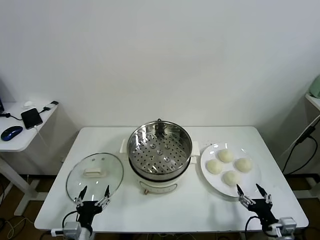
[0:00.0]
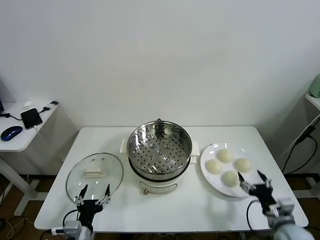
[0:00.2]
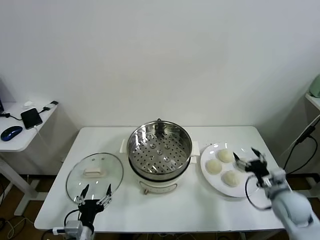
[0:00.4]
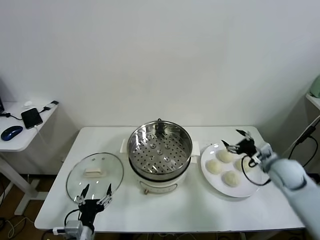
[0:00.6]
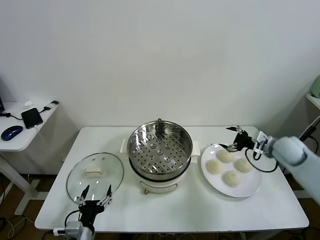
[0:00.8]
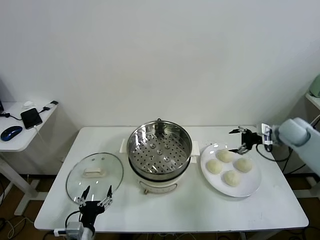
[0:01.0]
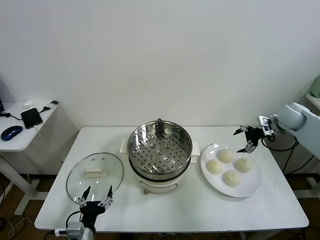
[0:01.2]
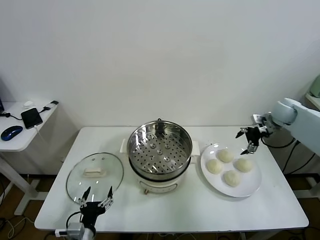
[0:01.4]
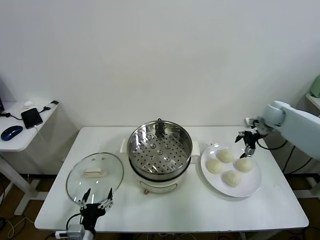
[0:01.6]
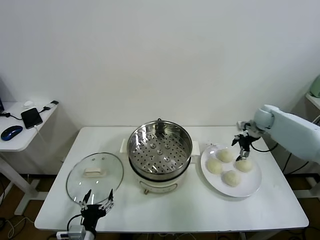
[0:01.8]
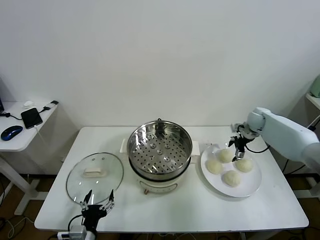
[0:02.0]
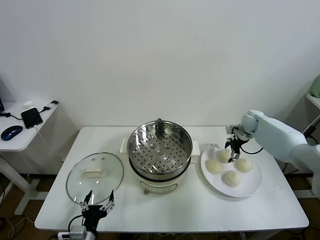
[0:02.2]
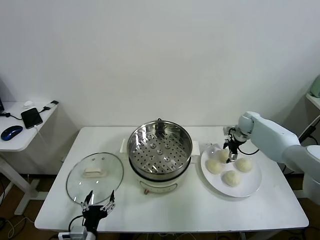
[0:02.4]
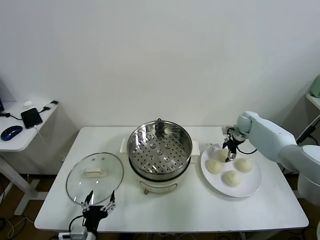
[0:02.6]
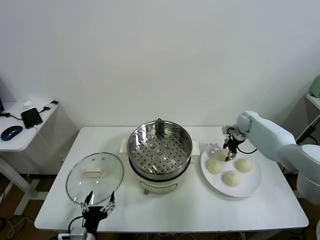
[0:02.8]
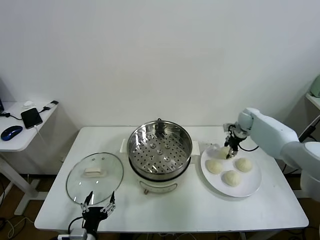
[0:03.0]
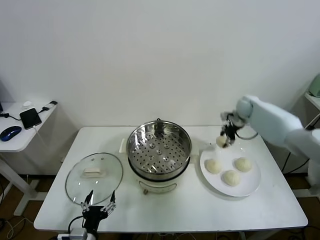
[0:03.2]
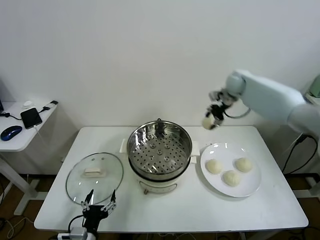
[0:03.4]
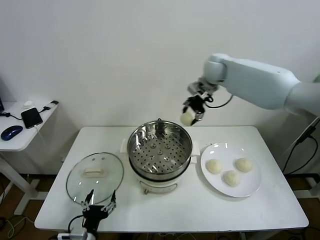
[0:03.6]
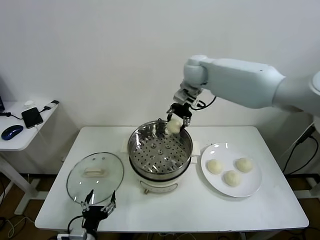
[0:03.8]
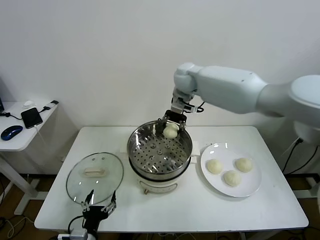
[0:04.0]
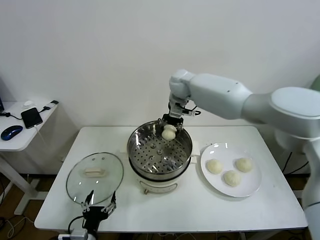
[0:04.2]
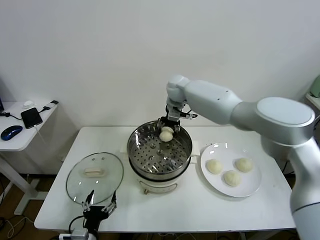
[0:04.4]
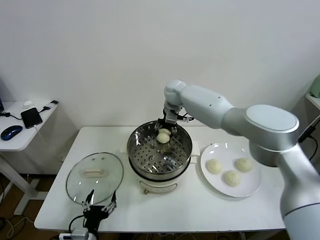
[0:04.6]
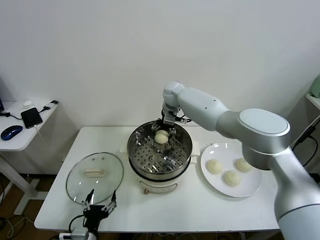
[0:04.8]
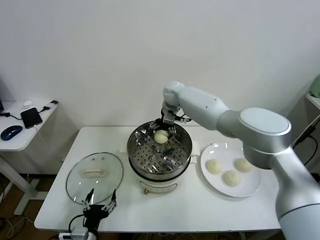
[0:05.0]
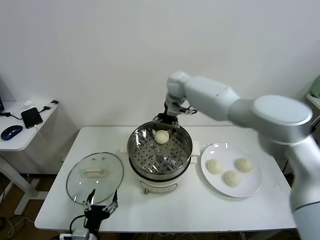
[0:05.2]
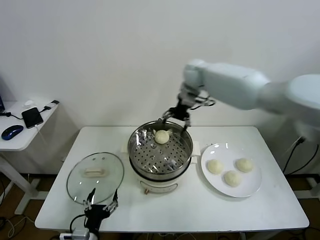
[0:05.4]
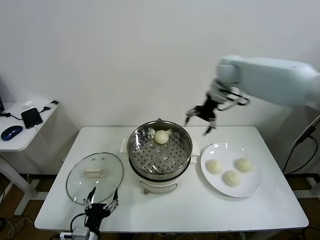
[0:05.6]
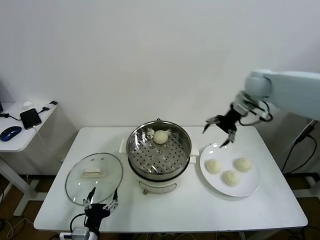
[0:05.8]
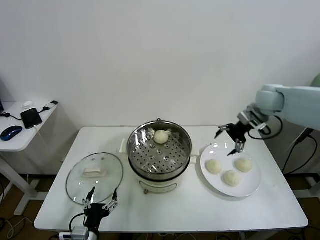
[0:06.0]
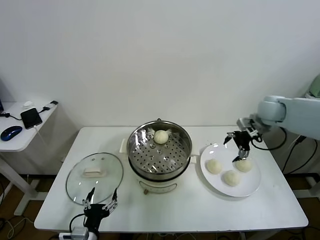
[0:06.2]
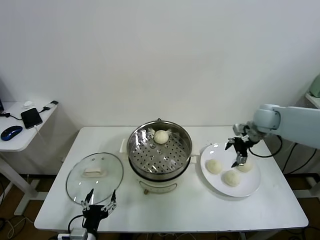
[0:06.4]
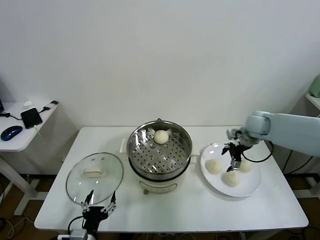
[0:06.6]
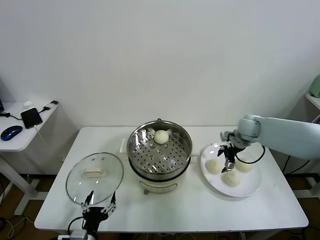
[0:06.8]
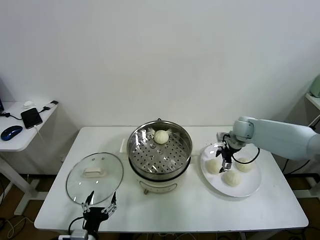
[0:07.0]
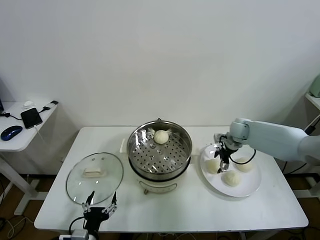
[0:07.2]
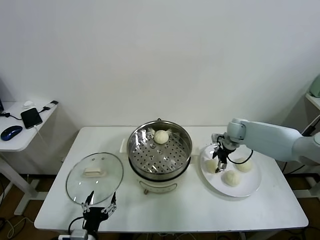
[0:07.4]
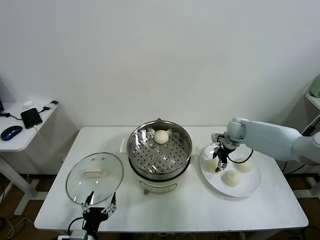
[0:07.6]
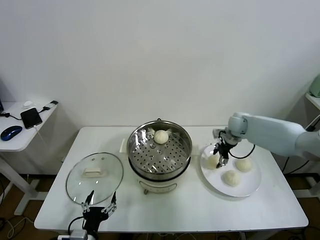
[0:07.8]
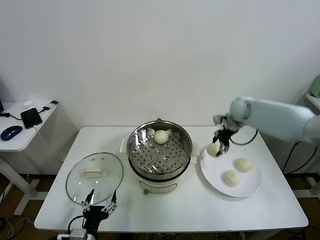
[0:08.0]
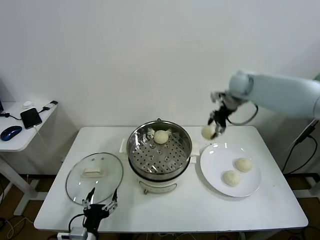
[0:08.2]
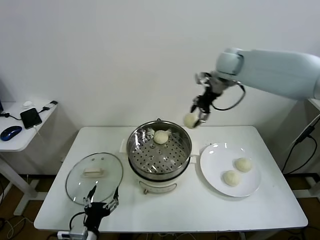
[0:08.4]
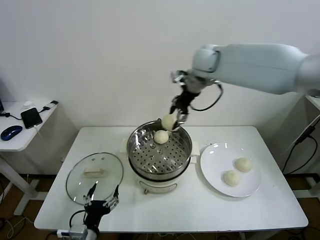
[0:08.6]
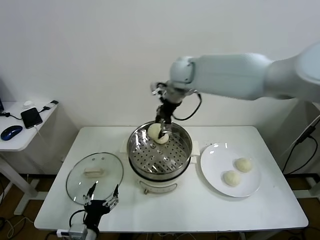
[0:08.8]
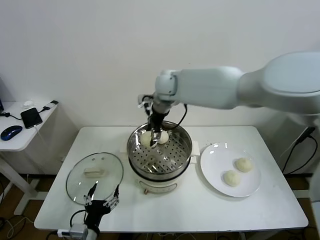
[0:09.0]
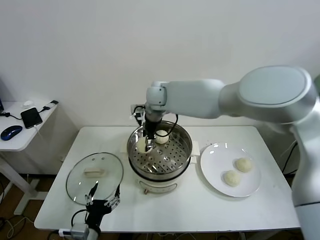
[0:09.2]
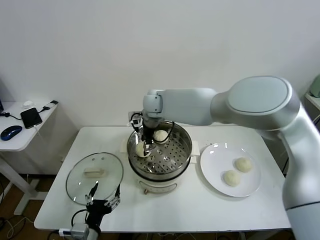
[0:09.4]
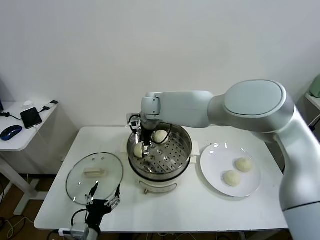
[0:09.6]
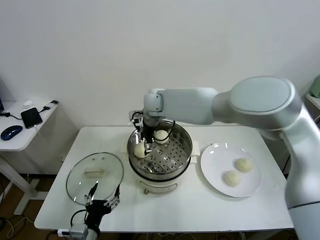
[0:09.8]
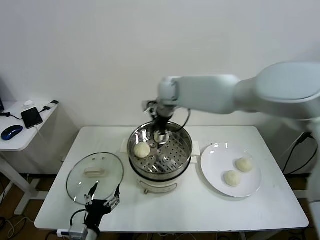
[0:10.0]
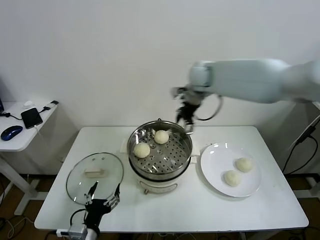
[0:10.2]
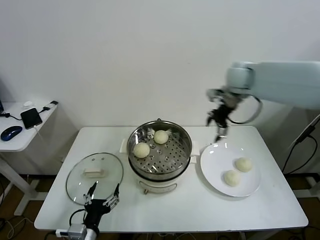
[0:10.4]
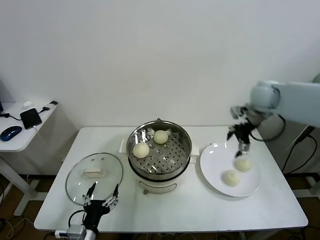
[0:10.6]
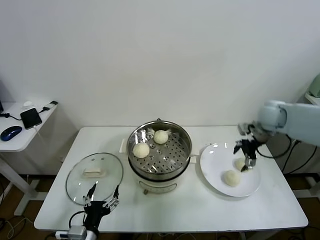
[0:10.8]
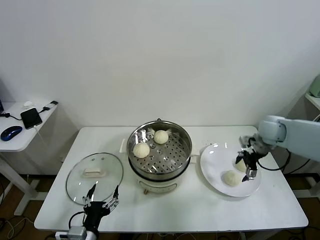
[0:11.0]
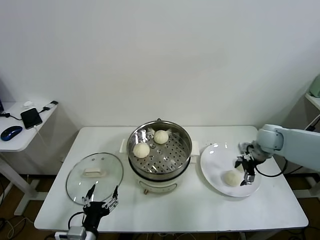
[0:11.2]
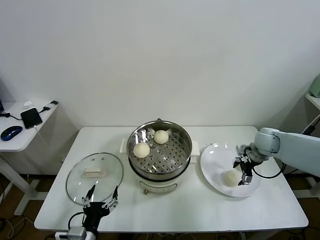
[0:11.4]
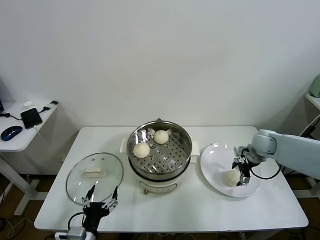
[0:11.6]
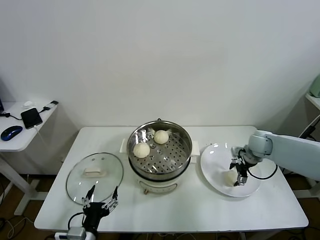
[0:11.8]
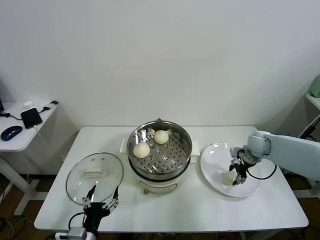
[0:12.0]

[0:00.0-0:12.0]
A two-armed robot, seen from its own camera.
Task of the whole recording: take steamed baozi put them in steamer.
Step, 0:00.0 to 0:02.8: Grasp the baozi in the plate with right gripper.
Step, 0:03.0 to 0:04.8: Place the baozi on the steamer with right gripper.
Step, 0:05.2 to 0:07.6: Grasp the baozi in the plate with right gripper.
Step, 0:07.8 to 0:09.6: Place the baozi on the steamer with right gripper.
0:01.6 to 0:03.0: The right gripper moves downward, to the left and forward, about 10 cm, and closes up.
0:03.0 to 0:04.4: The right gripper travels to the left and upward by about 35 cm.
0:04.4 to 0:06.0: The right gripper shifts some 30 cm to the right, and opens.
0:06.0 to 0:07.6: The right gripper travels downward by roughly 20 cm, and closes its fingers.
0:07.6 to 0:09.0: The right gripper heads to the left and upward, covering some 35 cm.
0:09.0 to 0:10.4: The right gripper travels to the right by roughly 25 cm, and opens its fingers.
0:10.4 to 0:12.0: The right gripper is displaced downward and to the right by about 25 cm, and closes its fingers.

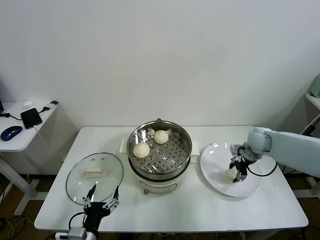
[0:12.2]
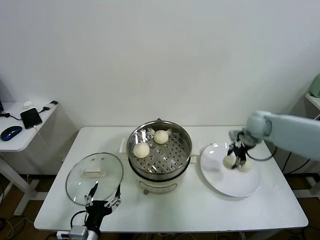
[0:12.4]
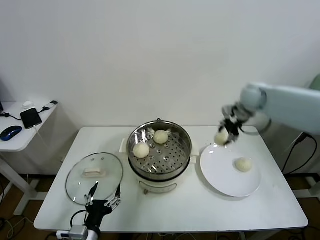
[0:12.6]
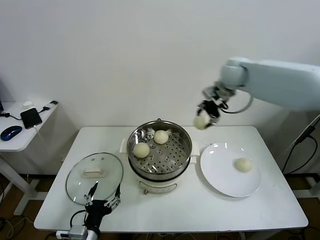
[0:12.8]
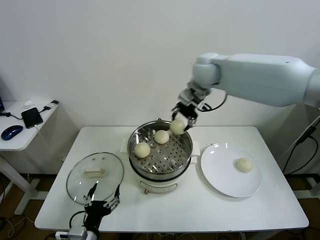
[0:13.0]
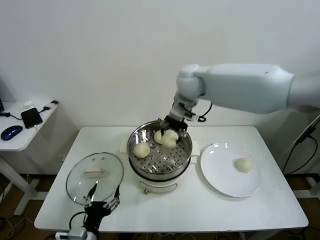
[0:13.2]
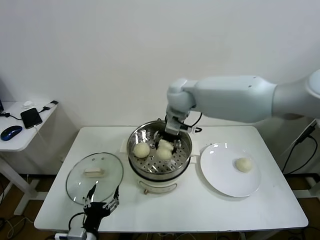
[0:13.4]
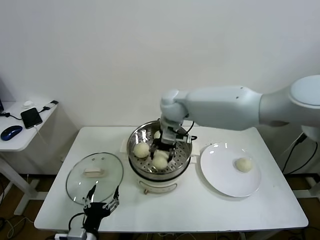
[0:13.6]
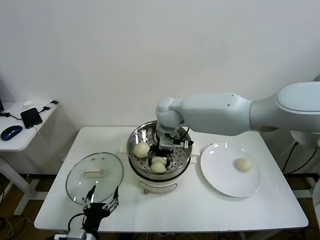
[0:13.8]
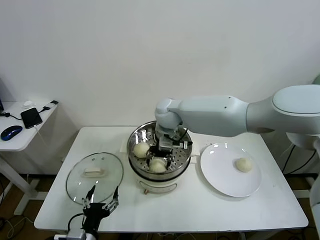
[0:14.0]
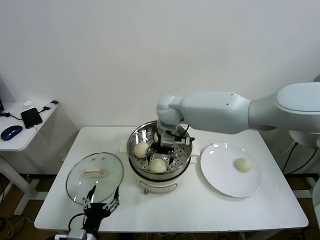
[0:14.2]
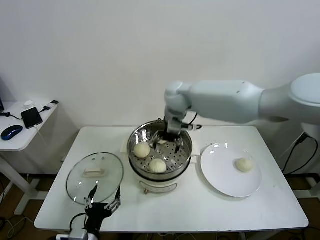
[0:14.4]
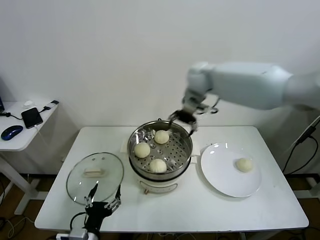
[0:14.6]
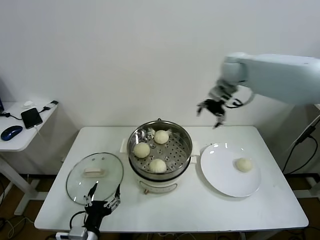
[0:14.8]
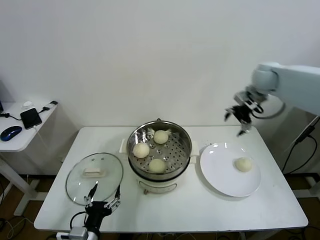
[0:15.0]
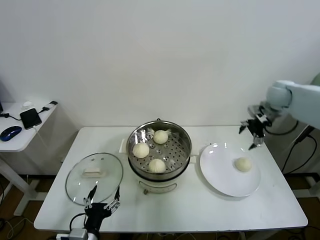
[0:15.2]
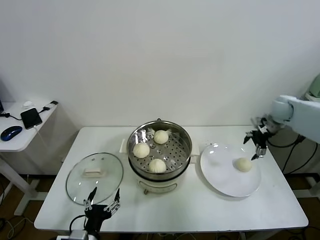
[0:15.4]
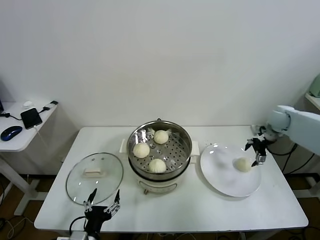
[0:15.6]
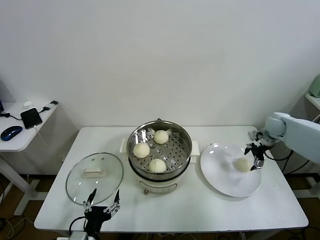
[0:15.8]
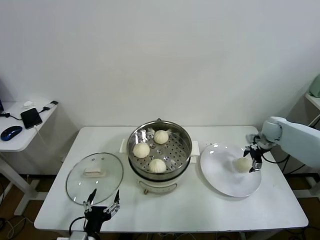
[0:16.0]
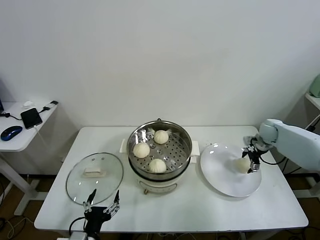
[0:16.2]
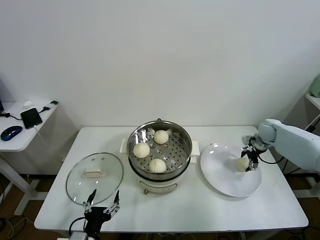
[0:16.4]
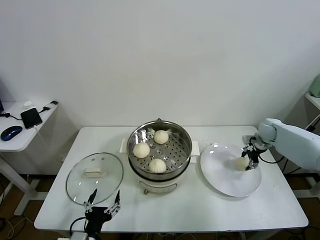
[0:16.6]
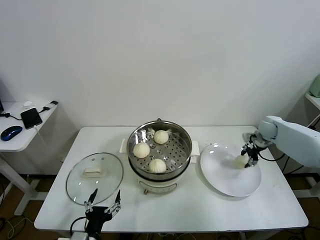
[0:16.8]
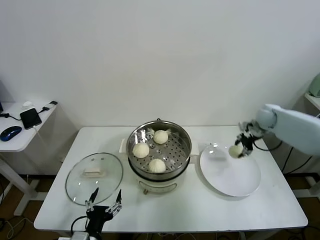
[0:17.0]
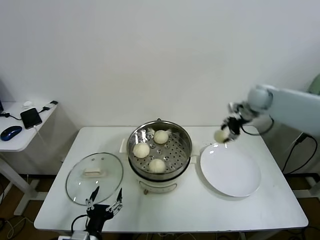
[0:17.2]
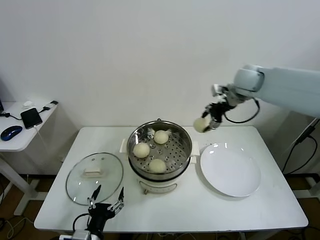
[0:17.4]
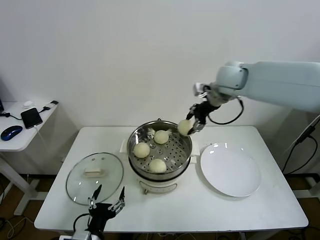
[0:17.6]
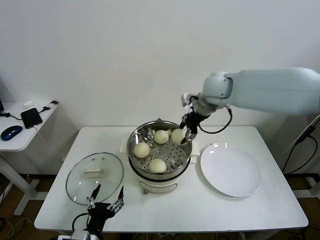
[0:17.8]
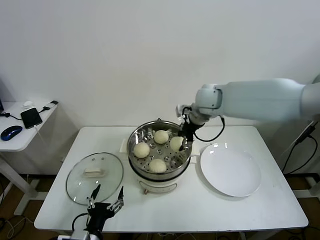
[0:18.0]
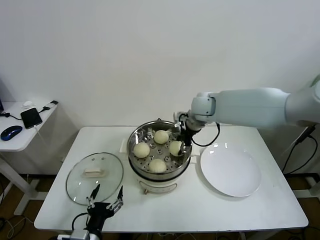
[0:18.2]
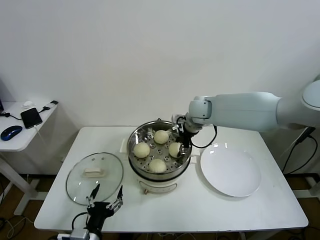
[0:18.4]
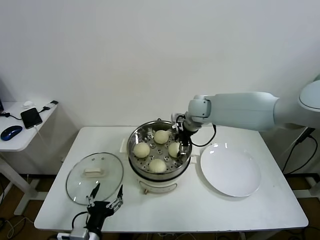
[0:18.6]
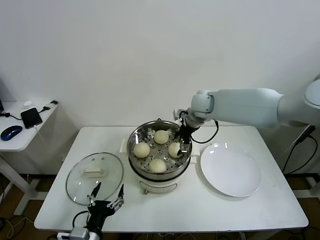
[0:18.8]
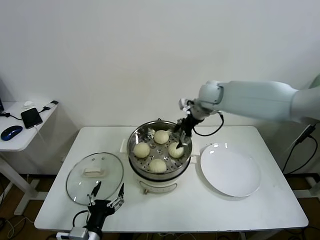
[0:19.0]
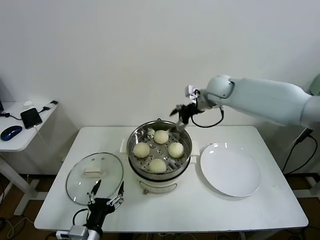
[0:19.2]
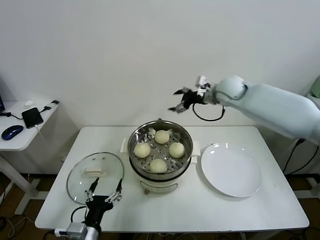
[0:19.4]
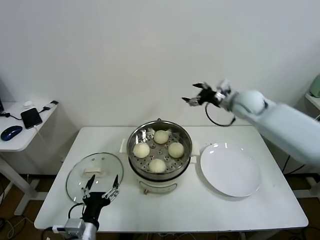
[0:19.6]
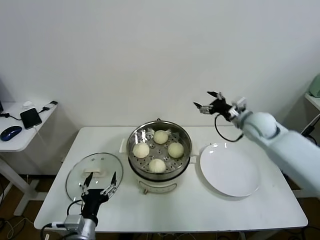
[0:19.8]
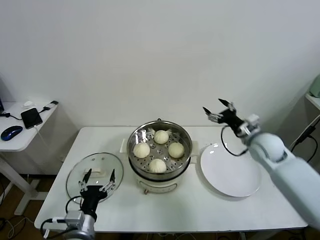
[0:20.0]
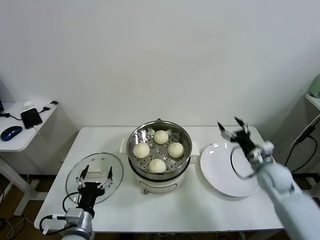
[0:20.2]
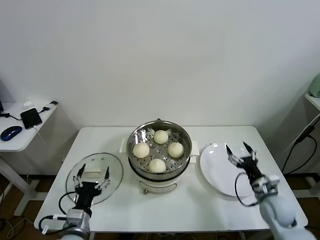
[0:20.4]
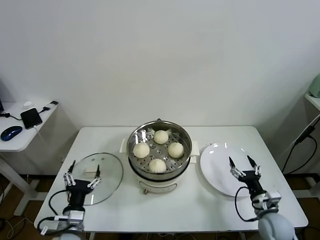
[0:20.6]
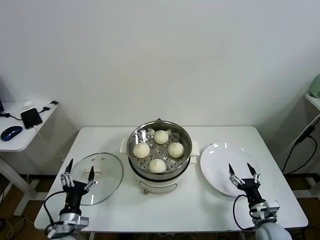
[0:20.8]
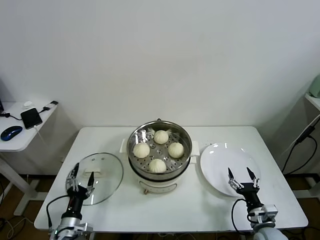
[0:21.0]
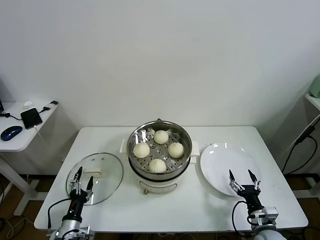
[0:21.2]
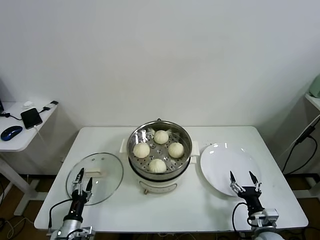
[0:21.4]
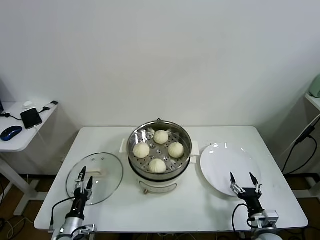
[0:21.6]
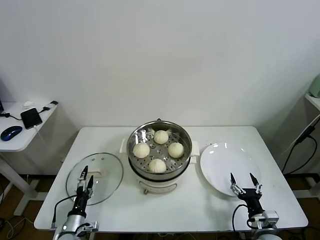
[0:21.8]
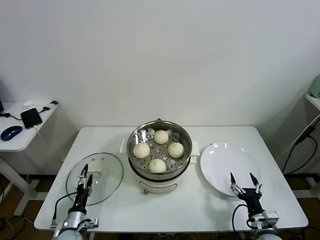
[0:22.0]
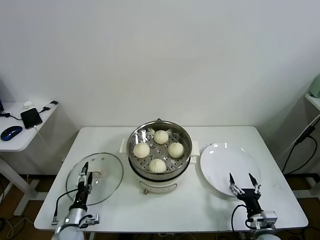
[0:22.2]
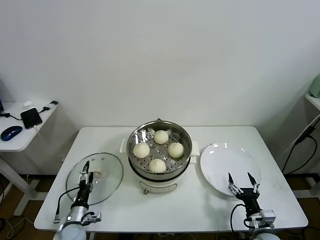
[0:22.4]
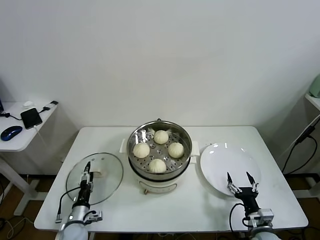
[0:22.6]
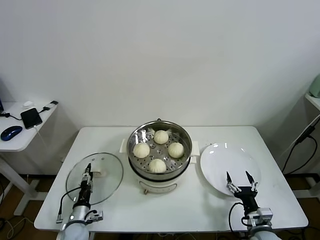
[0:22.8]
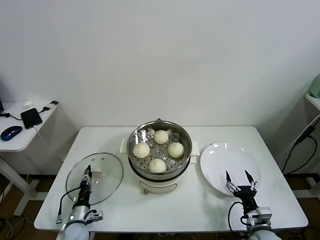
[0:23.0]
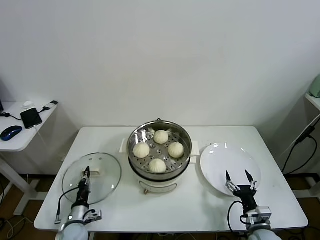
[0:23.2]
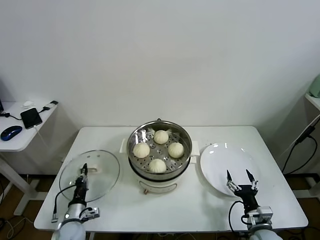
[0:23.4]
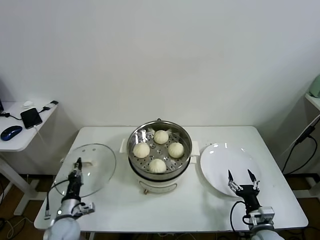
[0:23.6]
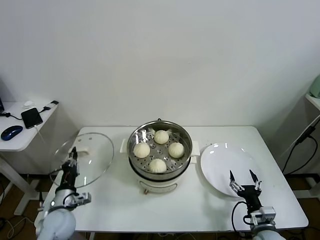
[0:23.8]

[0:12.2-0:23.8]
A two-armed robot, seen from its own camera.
Task of the whole recording: take steamed baozi put them in steamer.
Step, 0:12.2 to 0:14.0: Place the baozi on the steamer with right gripper.
Step, 0:14.4 to 0:16.4: Grasp the baozi in the plate with right gripper.
Step, 0:16.6 to 0:18.6: Place the baozi on the steamer with right gripper.
Step, 0:18.8 to 0:23.2: Grasp the pot lid with left gripper.
0:12.2 to 0:13.6: The right gripper travels to the left and upward by about 35 cm.
0:13.6 to 0:15.0: The right gripper travels to the right by approximately 30 cm, and opens.
0:15.0 to 0:16.6: The right gripper shifts about 25 cm downward and to the right, and closes its fingers.
0:16.6 to 0:18.0: The right gripper travels to the left and upward by some 35 cm, and closes up.
0:18.0 to 0:19.4: The right gripper heads to the right, covering approximately 5 cm, and opens.
0:19.4 to 0:21.0: The left gripper moves downward, to the left and forward, some 15 cm; the right gripper shifts approximately 50 cm backward and downward.
0:21.0 to 0:22.4: The left gripper moves downward and forward, approximately 10 cm.
0:22.4 to 0:23.8: The left gripper moves upward, roughly 10 cm, and closes up.
